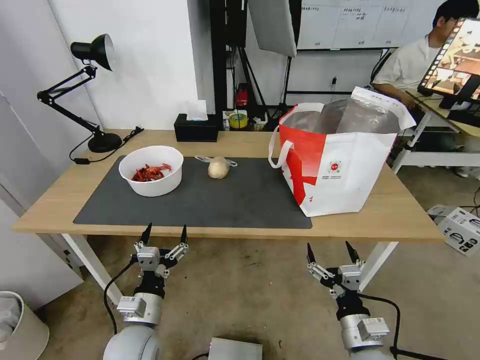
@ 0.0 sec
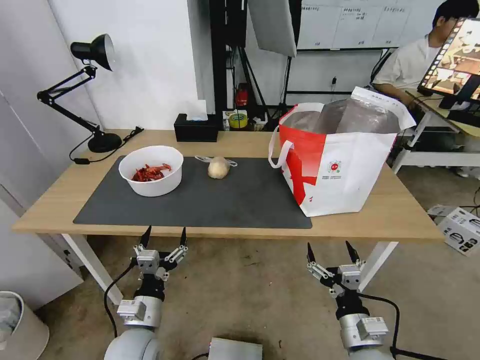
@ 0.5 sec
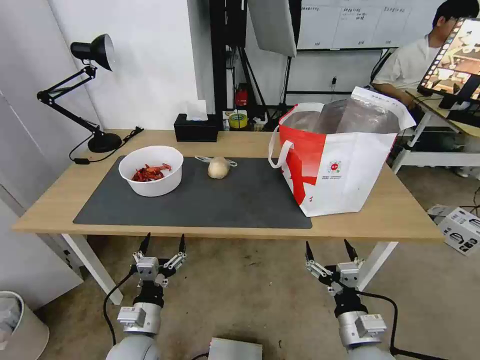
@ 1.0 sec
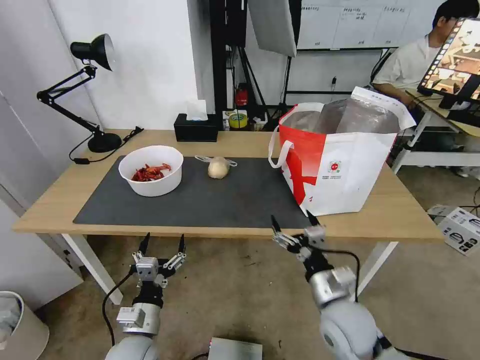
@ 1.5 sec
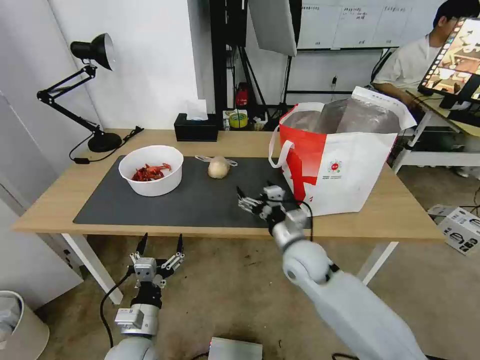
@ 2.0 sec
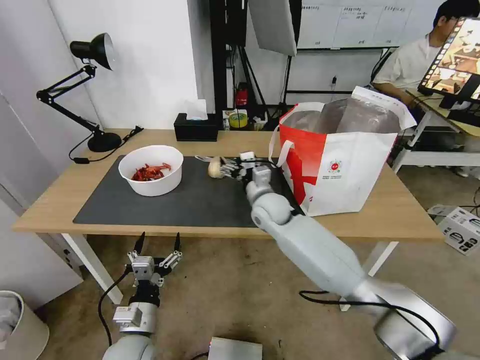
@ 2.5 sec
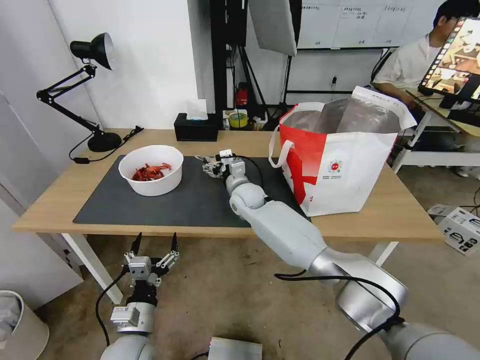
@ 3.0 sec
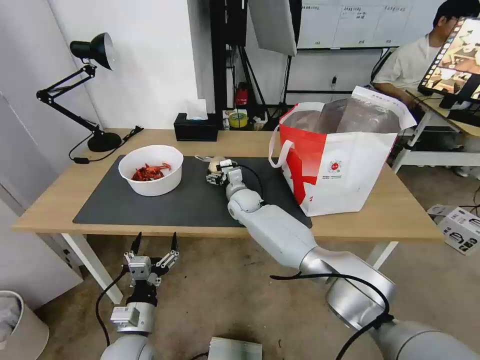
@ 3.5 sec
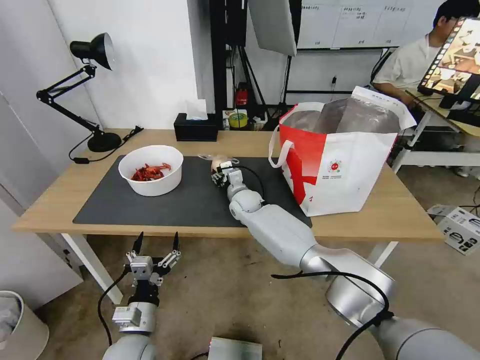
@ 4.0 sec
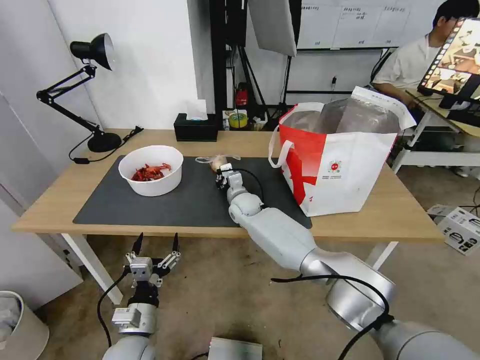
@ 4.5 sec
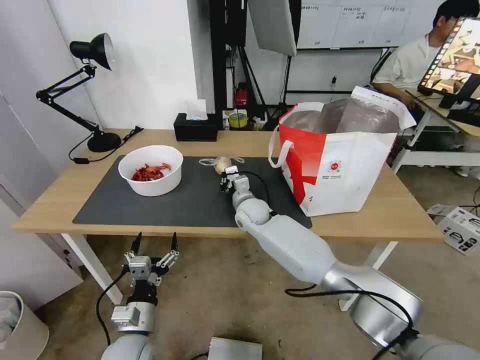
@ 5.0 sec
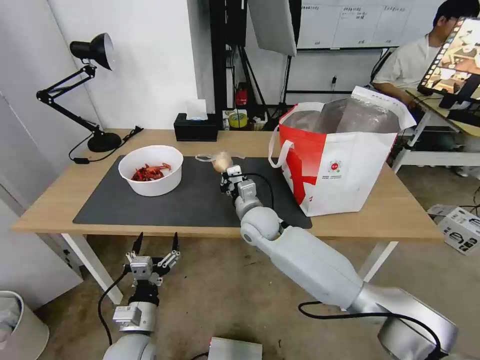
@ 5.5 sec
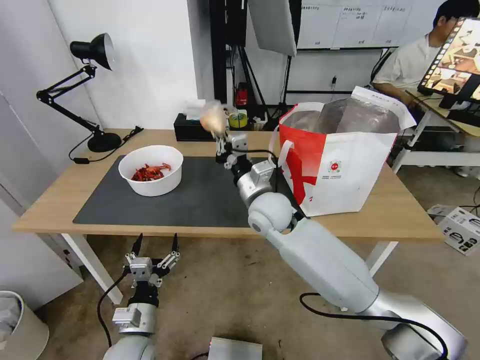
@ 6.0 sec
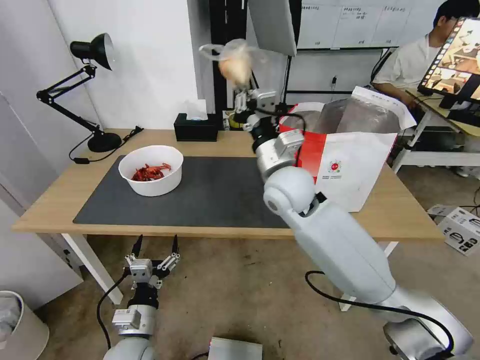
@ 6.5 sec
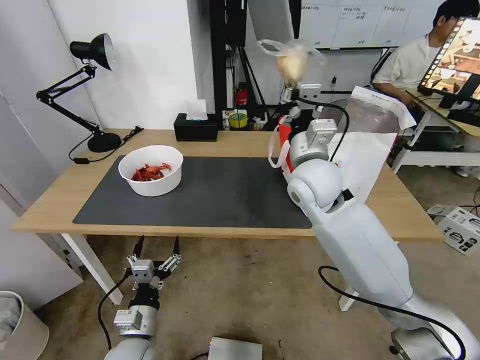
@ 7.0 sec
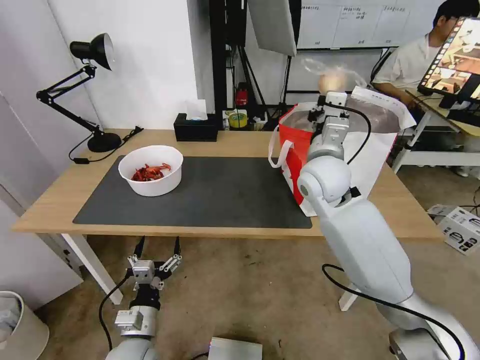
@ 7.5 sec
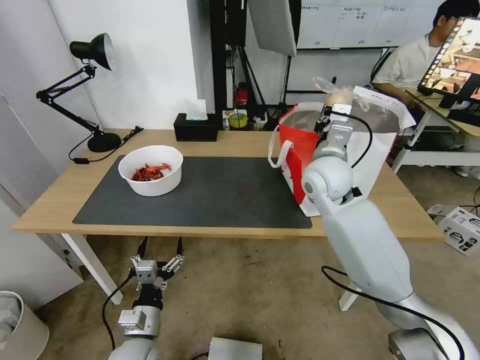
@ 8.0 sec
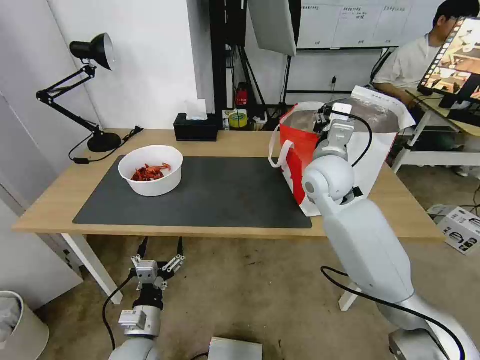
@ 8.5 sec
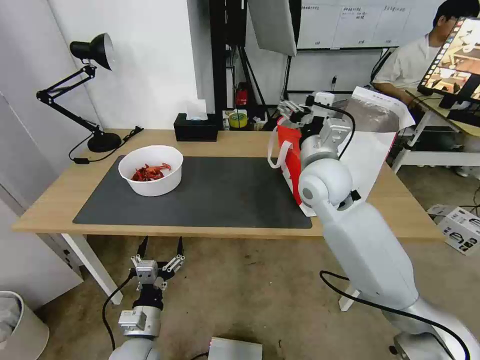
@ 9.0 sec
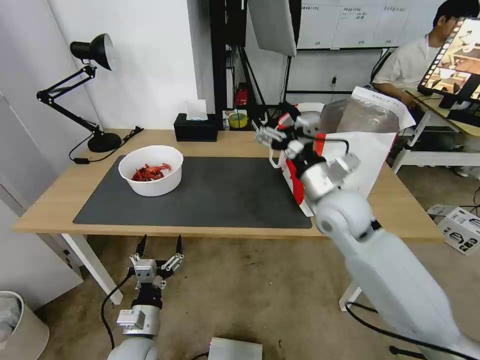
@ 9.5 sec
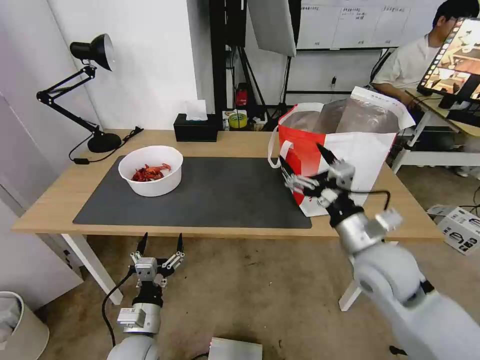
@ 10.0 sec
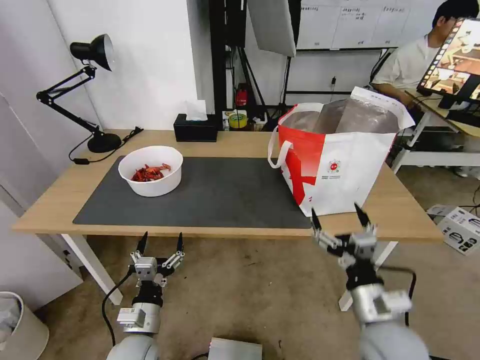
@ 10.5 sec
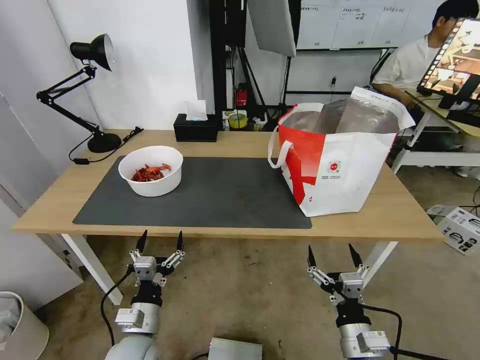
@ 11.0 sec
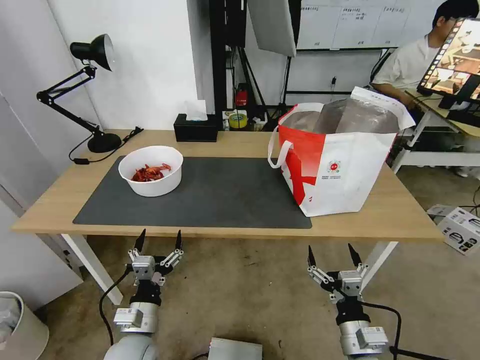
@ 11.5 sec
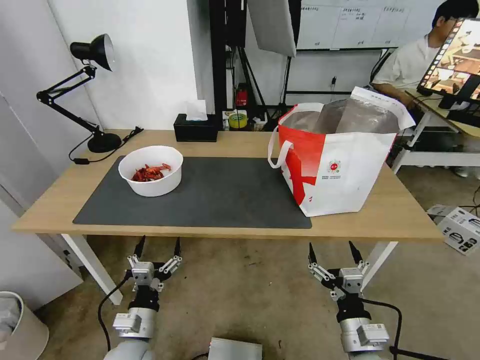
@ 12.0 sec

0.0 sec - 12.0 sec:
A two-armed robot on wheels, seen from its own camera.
Task of the whole recording: Pick up the trash from the table and place it into the takeout bag.
0.0 sec - 2.0 sec: The right gripper is displaced forward and to the left by roughly 20 cm.
2.0 sec - 4.0 sec: The right gripper heads forward and to the left, covering approximately 25 cm, and closes.
4.0 sec - 6.0 sec: The right gripper is displaced backward and upward by approximately 20 cm, and closes its fingers.
6.0 sec - 8.0 sec: The right gripper heads to the right and upward, covering roughly 15 cm.
8.0 sec - 10.0 sec: The right gripper travels backward, to the right and downward by approximately 20 cm, and opens its fingers.
10.0 sec - 12.0 sec: The right gripper goes roughly 20 cm downward and backward.

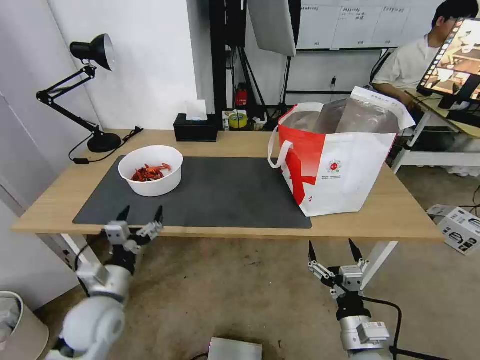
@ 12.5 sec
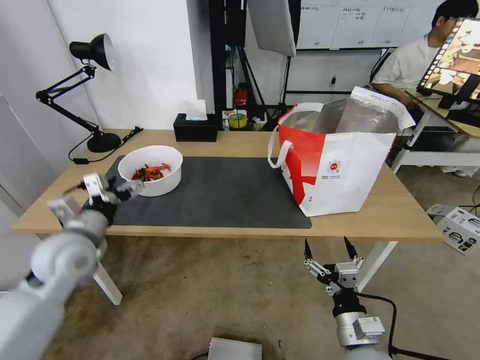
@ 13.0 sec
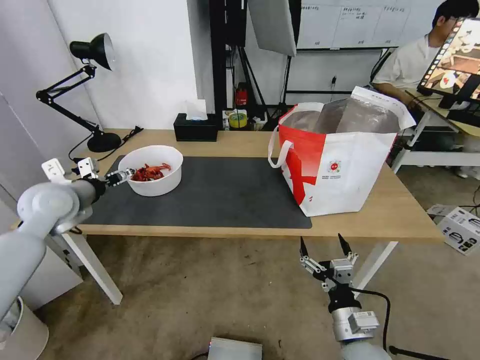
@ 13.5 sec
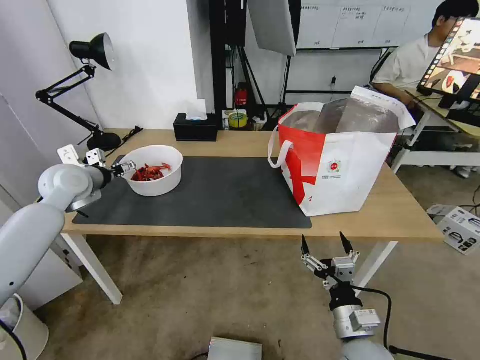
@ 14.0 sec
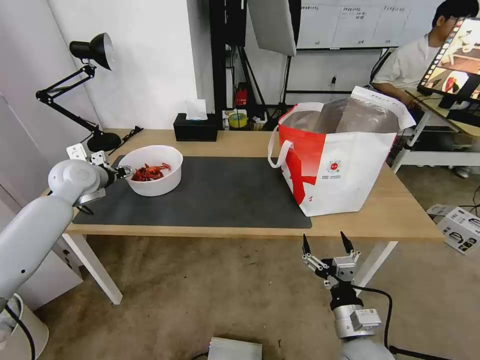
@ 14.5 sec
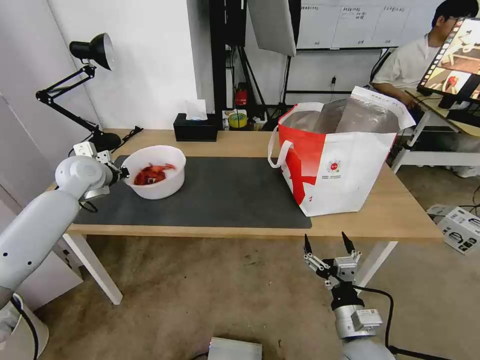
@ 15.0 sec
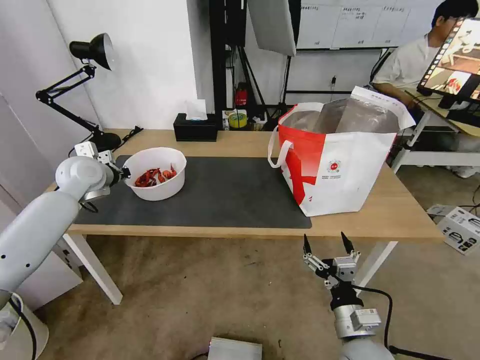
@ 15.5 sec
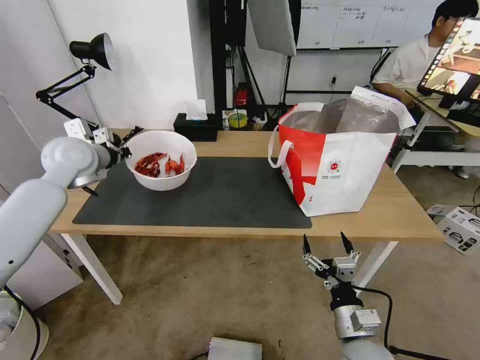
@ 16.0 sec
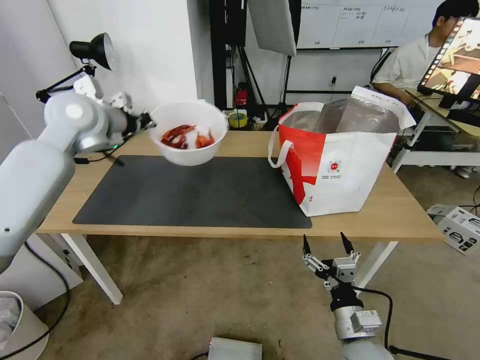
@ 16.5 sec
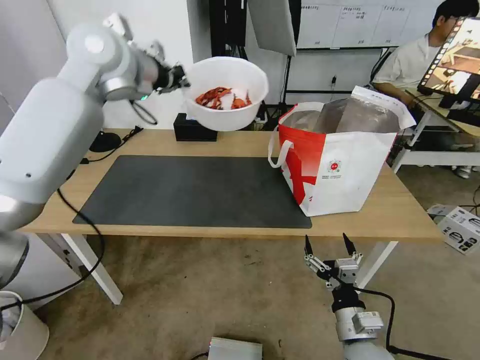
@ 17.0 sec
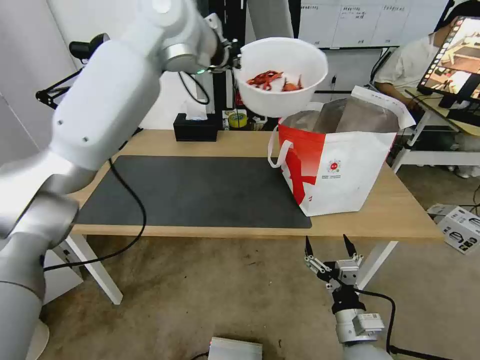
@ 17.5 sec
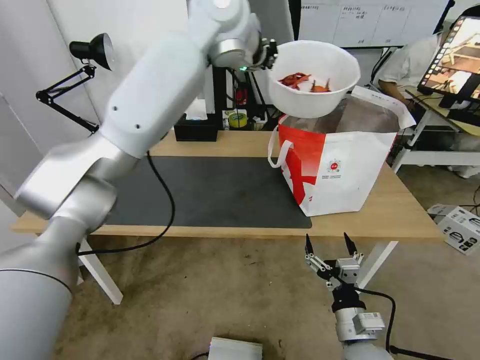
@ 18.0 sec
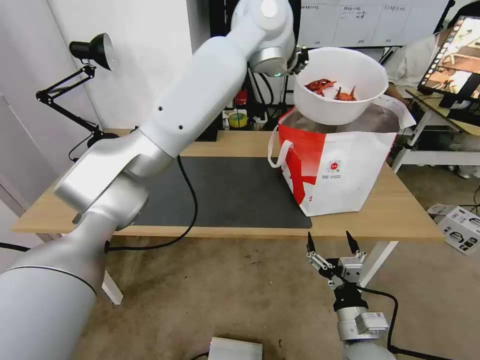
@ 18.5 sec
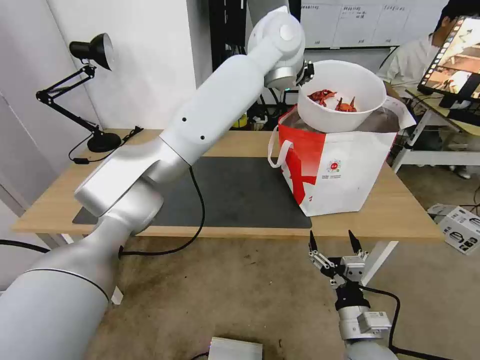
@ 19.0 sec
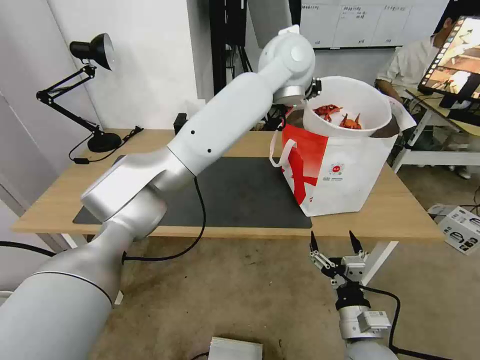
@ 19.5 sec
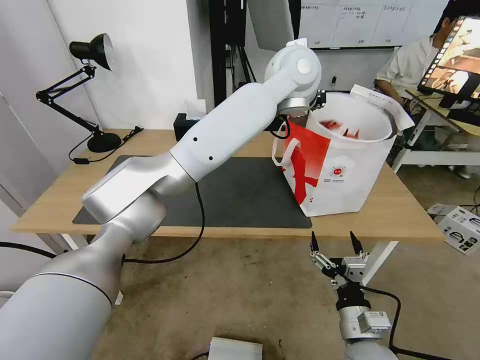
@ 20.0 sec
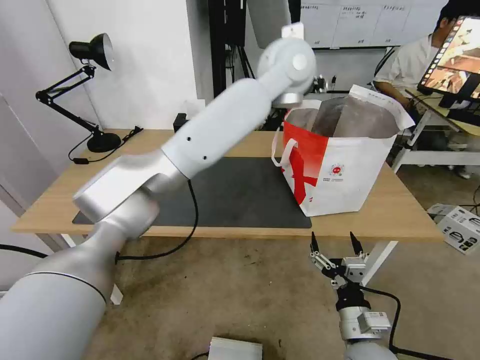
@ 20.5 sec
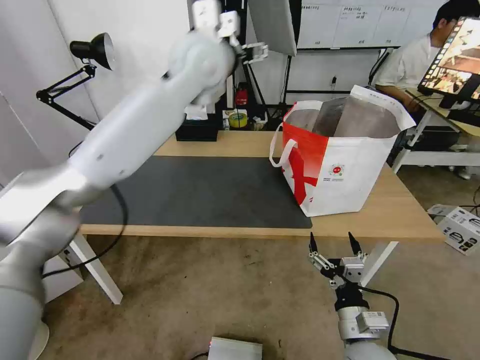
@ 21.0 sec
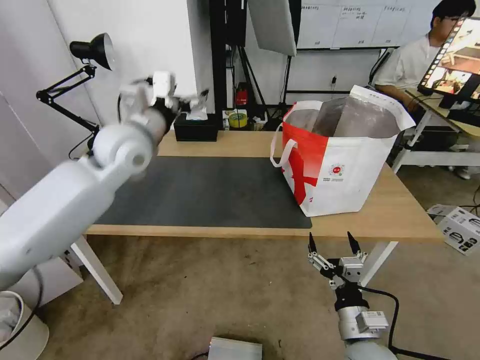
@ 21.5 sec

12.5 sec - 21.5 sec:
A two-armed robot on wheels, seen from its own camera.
Task of the whole recording: Pick up the trash from the table and place it into the takeout bag.
12.5 sec - 14.5 sec: The left gripper goes about 30 cm forward and upward, and closes its fingers.
14.5 sec - 17.0 sec: The left gripper is displaced upward and to the right by approximately 30 cm, and closes its fingers.
17.0 sec - 19.5 sec: The left gripper is displaced to the right by some 30 cm.
19.5 sec - 21.5 sec: The left gripper shifts roughly 30 cm to the left, and opens up.

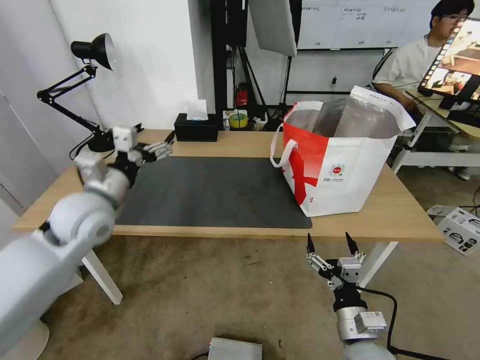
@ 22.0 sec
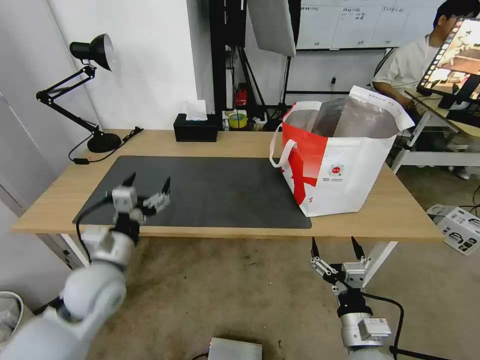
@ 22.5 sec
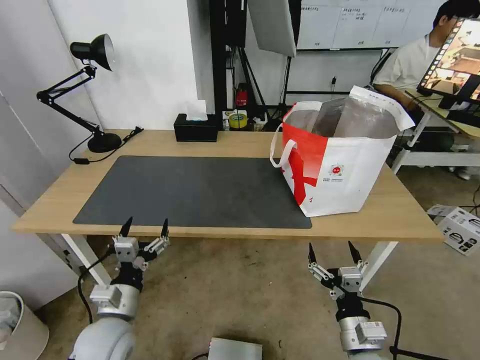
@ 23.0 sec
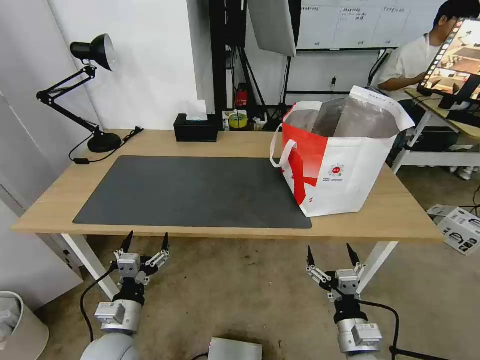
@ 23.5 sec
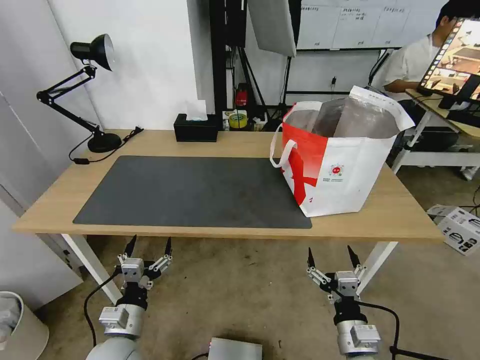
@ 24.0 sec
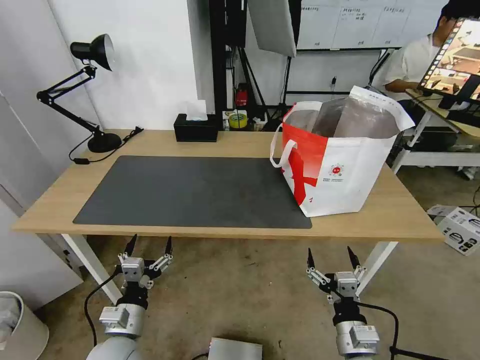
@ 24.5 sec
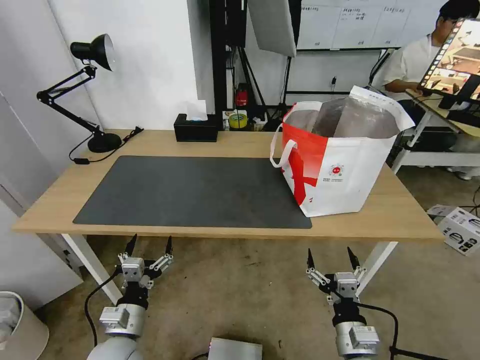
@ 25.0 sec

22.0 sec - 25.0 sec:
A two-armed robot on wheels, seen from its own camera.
Task of the whole recording: Pick up the trash from the table and place it into the takeout bag.
22.0 sec - 23.5 sec: The left gripper heads downward and backward, covering roughly 25 cm.
23.5 sec - 25.0 sec: The two grippers keep their place.
